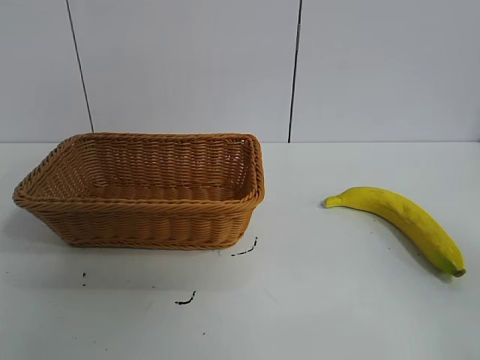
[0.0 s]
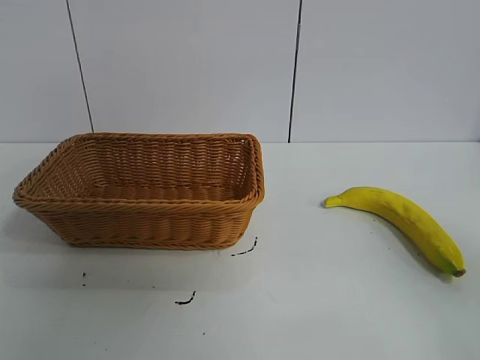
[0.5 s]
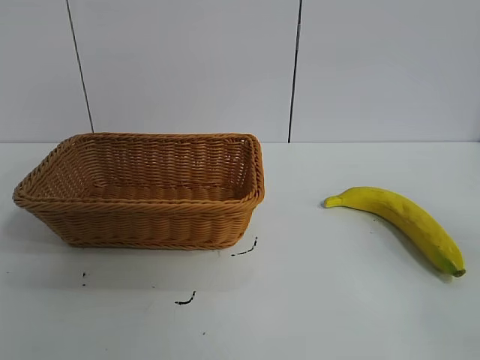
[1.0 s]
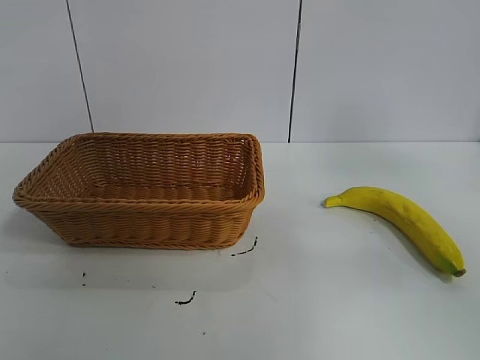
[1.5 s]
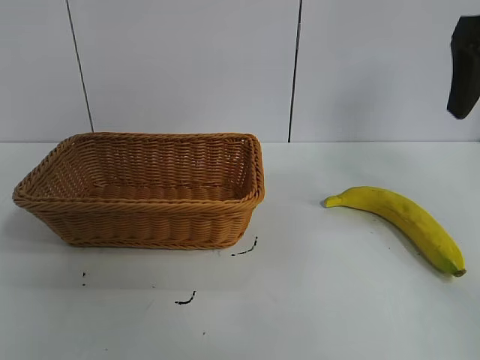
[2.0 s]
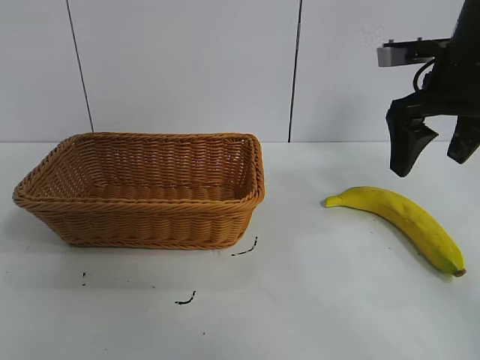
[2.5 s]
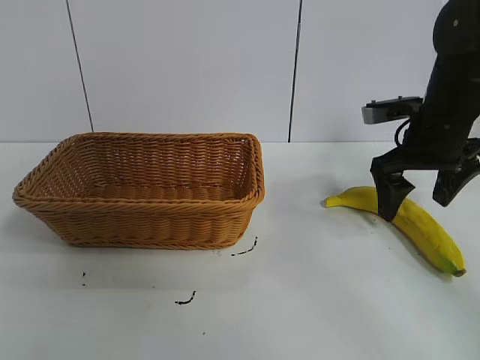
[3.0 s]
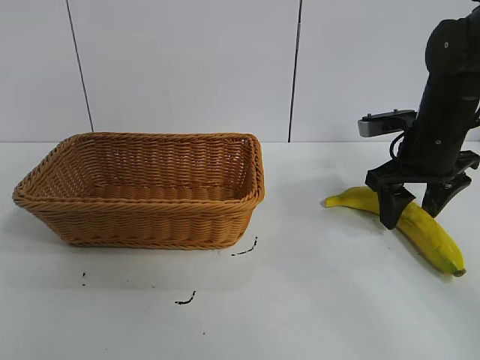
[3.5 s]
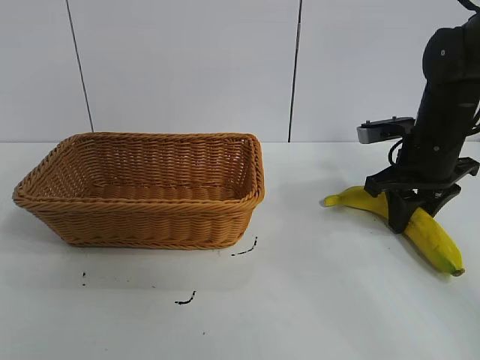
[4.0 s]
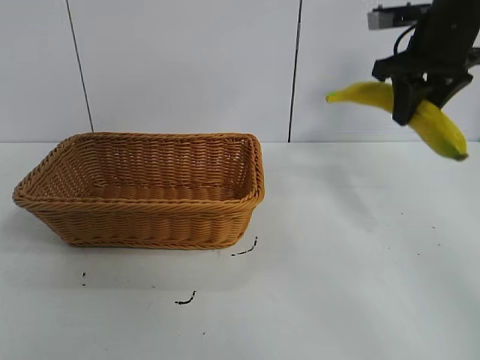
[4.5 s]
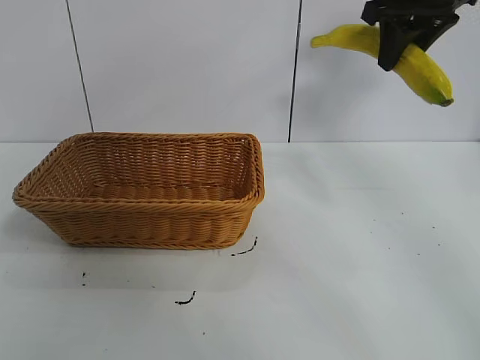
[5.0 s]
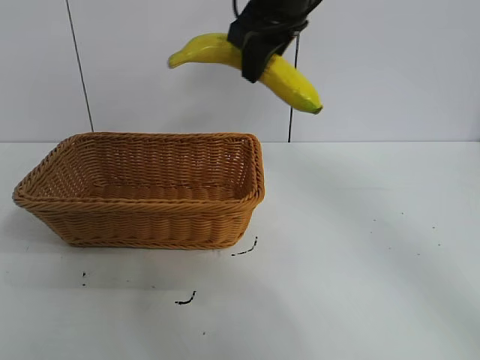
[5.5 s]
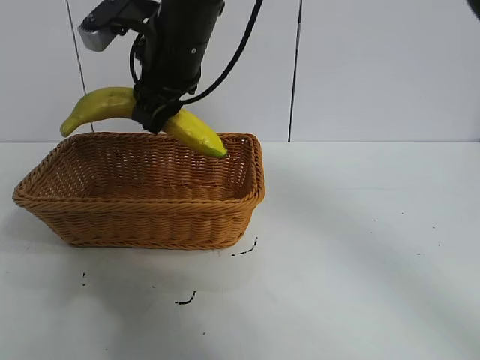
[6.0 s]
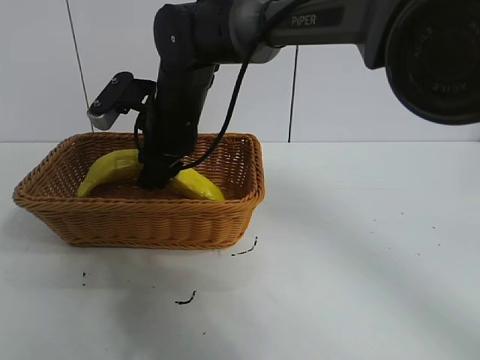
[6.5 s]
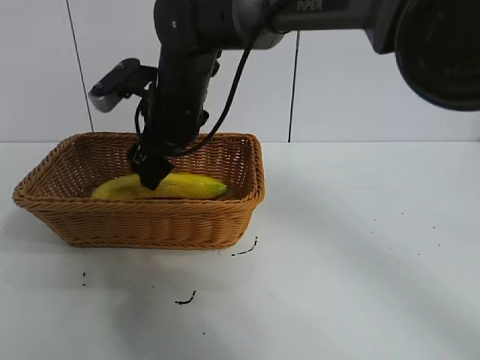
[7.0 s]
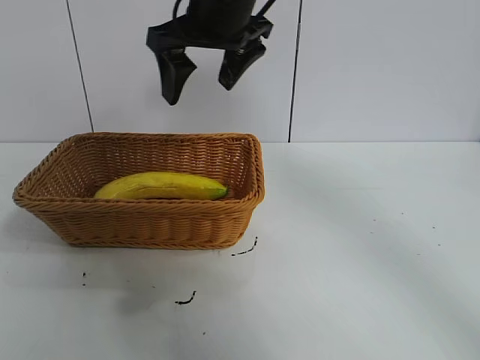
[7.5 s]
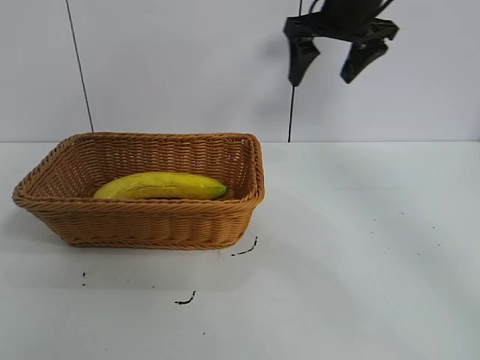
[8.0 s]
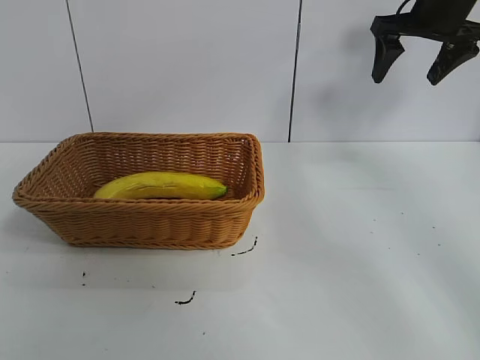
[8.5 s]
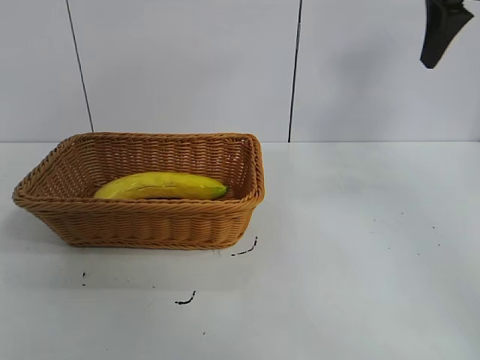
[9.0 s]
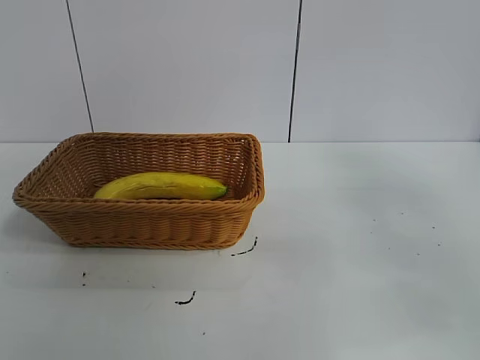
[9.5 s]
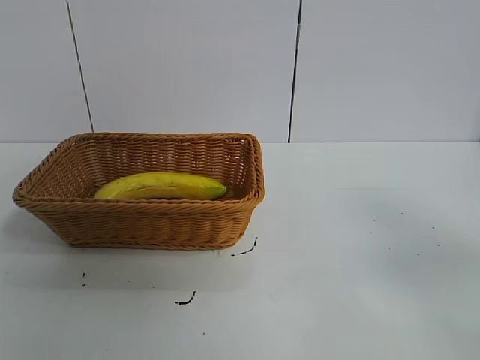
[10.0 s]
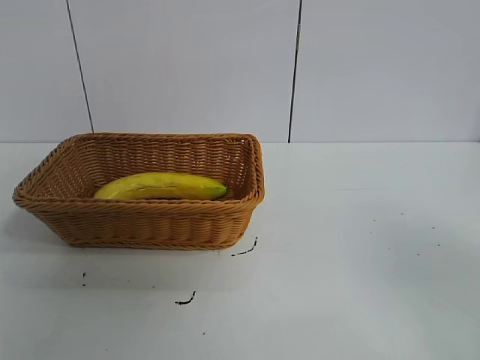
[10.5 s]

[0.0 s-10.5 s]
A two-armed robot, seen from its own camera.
Task of the whole recording: pick up the banana and put it into the basket.
Step, 1.0 to 4.0 s: Grasp the banana with right gripper.
Step, 4.5 to 7.0 s: Place the banana in the basket with right gripper.

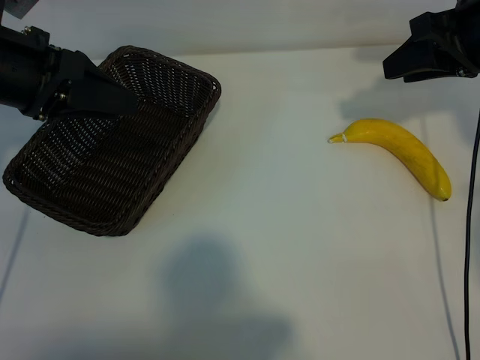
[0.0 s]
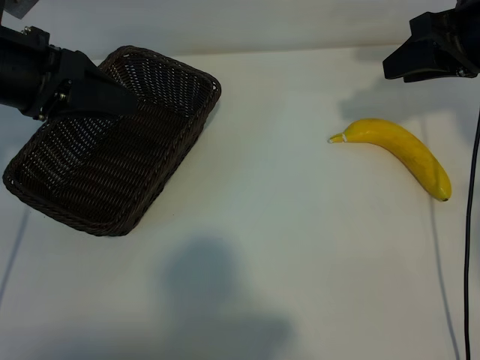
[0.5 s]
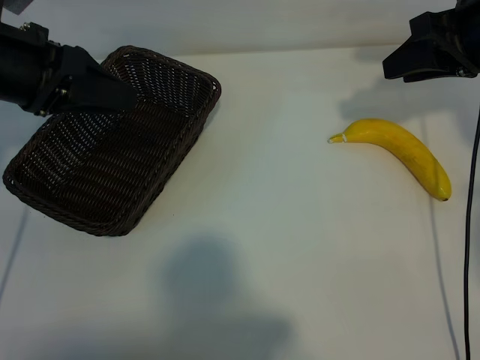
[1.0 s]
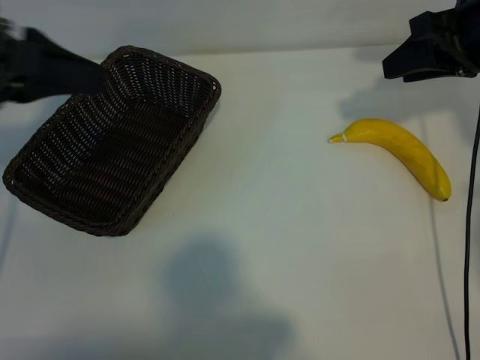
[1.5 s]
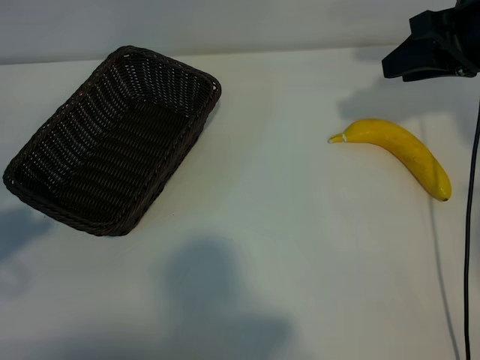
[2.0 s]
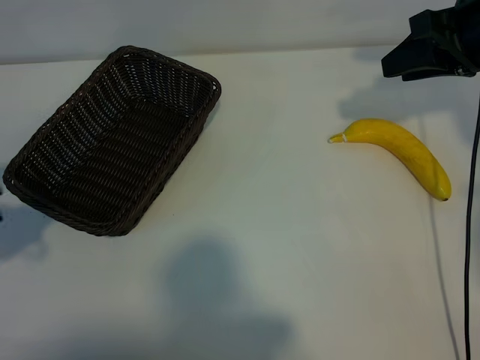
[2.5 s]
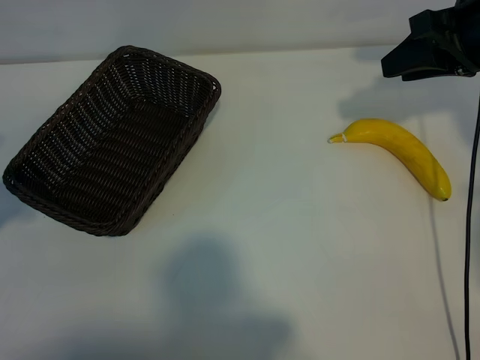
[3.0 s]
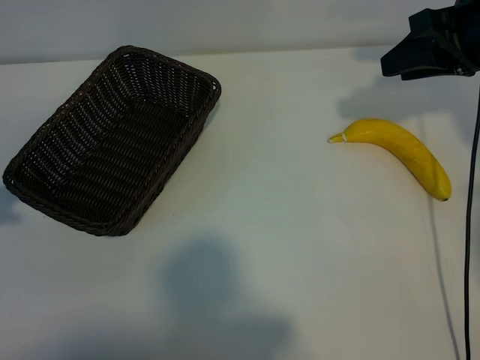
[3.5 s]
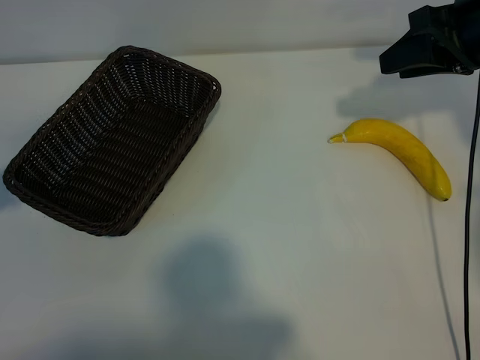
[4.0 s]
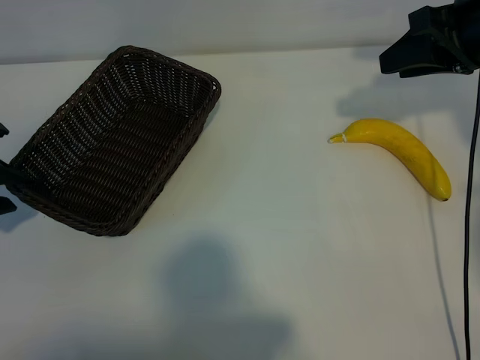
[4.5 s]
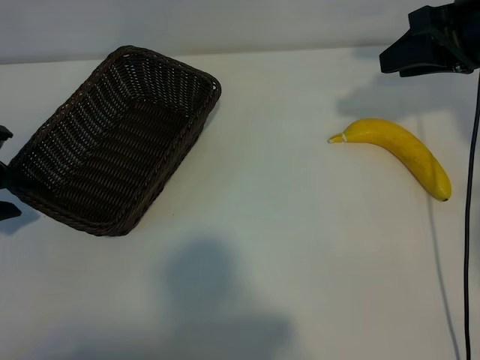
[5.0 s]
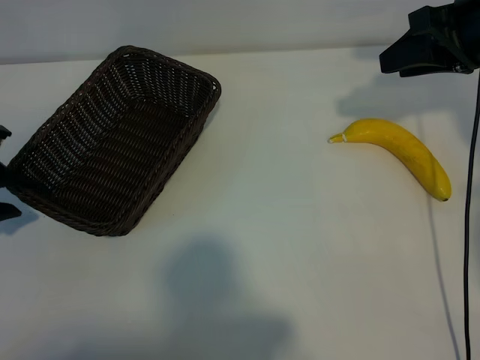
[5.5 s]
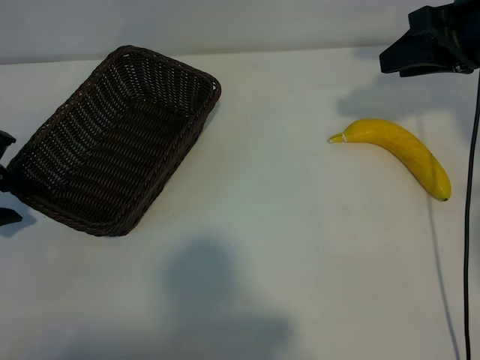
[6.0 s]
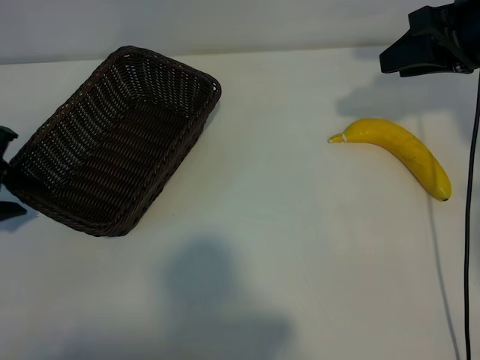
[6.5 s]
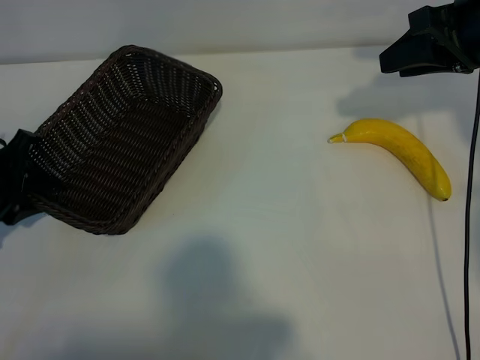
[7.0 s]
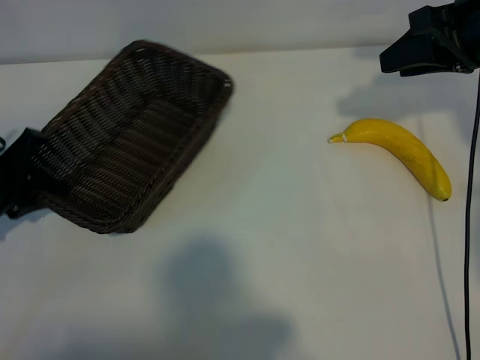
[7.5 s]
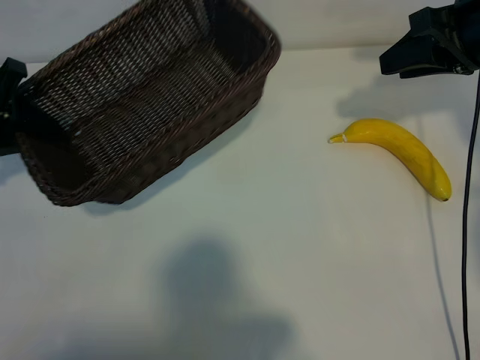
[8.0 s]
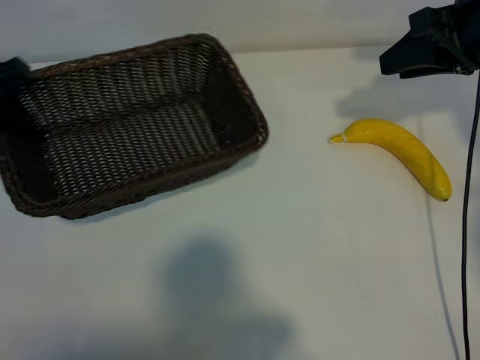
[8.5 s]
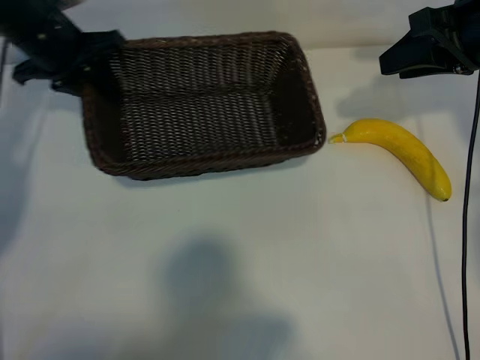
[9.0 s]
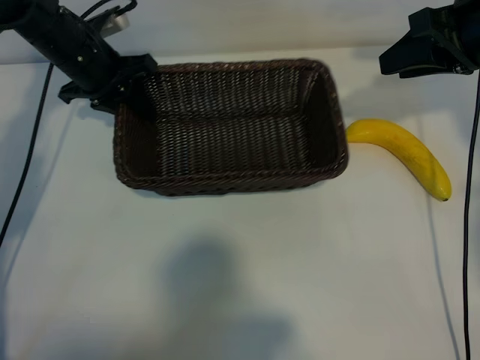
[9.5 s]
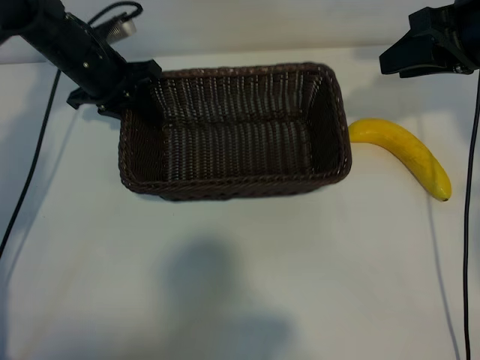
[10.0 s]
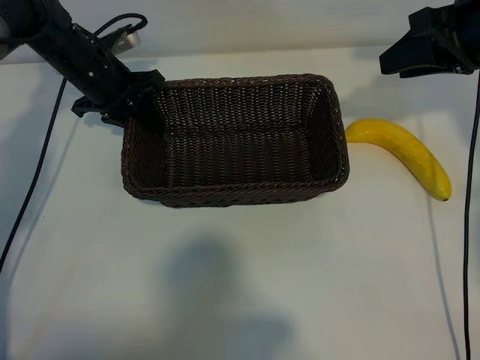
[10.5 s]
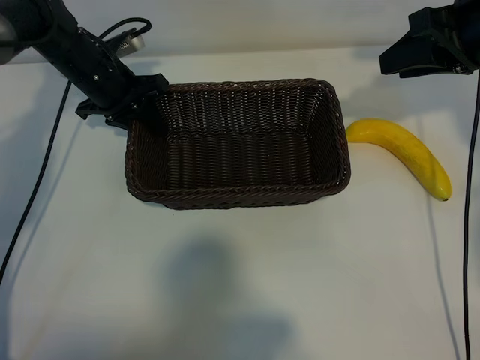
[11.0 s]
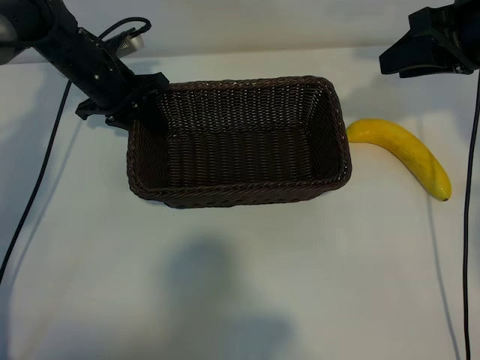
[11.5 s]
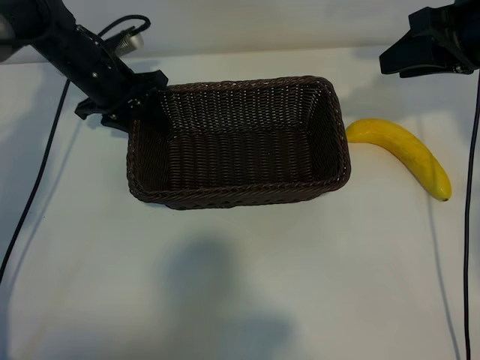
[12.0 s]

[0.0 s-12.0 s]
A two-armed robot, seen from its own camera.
Task of the whole recording: pick up the banana and put it into the basket.
Step, 1.0 to 7.0 s: Grasp the basket with the left gripper.

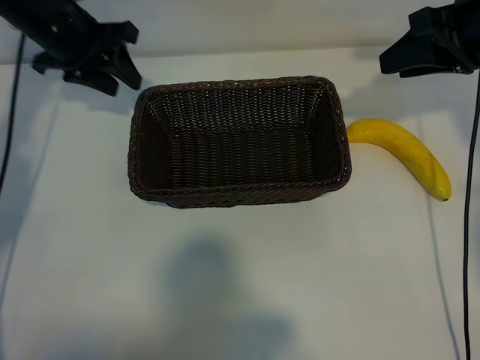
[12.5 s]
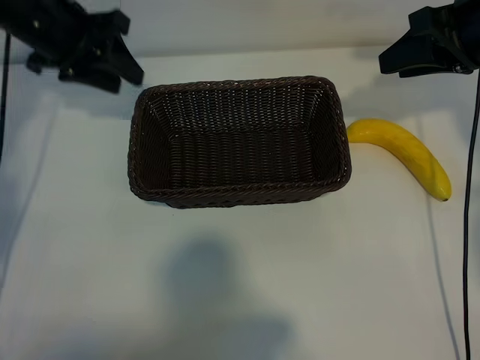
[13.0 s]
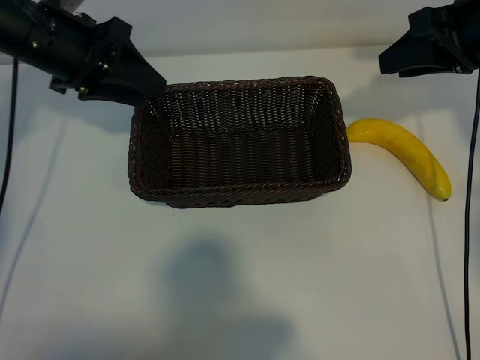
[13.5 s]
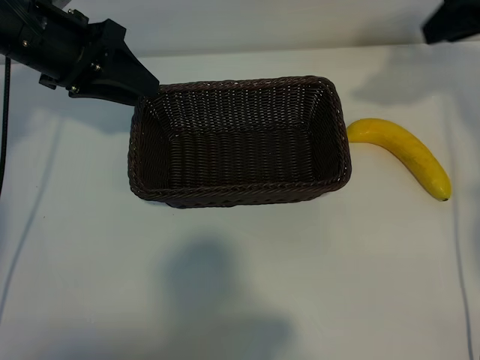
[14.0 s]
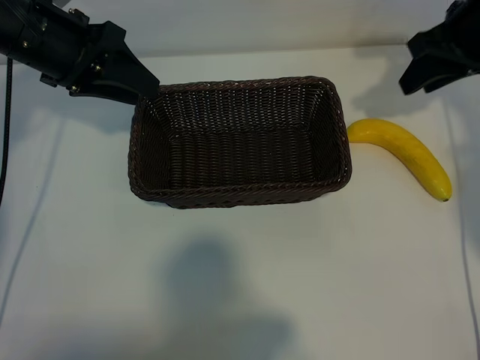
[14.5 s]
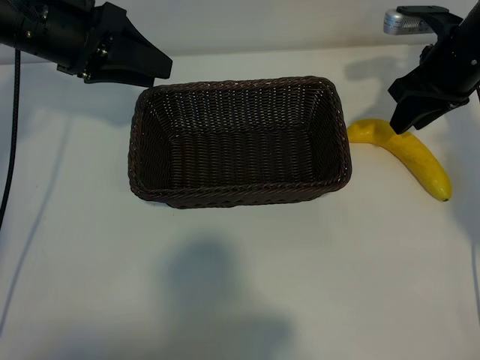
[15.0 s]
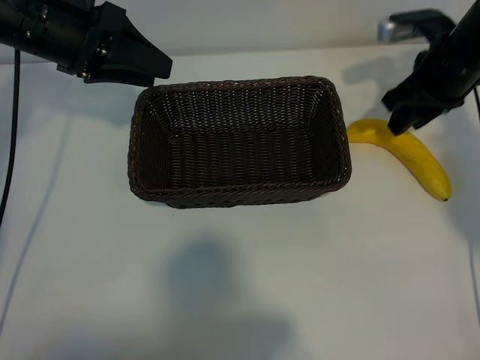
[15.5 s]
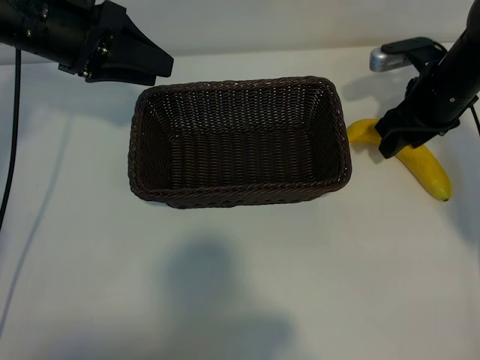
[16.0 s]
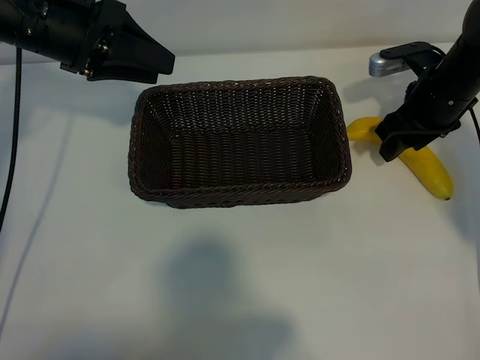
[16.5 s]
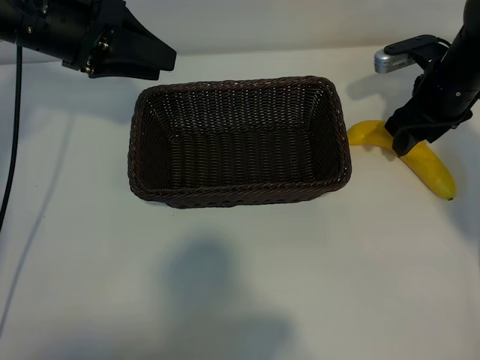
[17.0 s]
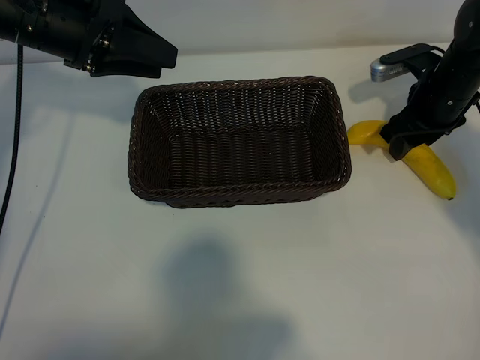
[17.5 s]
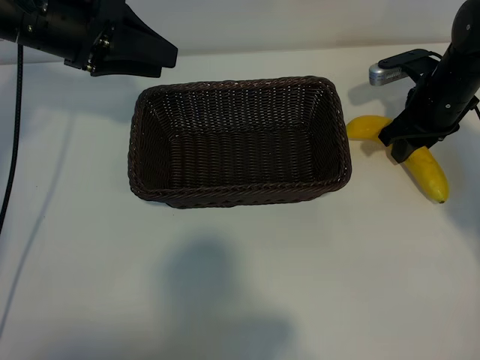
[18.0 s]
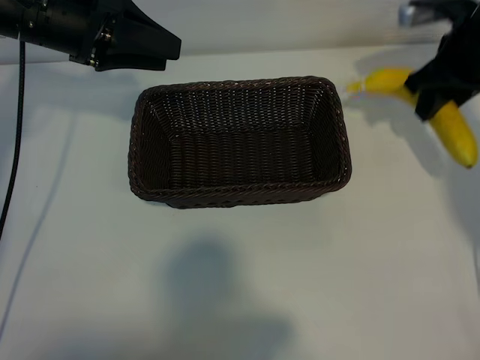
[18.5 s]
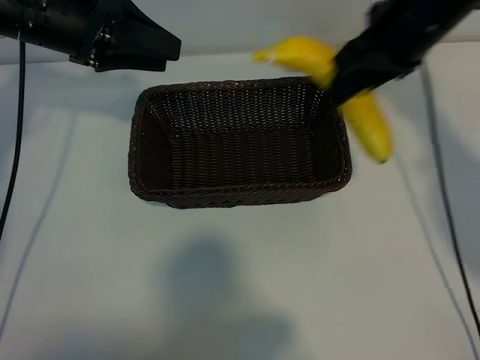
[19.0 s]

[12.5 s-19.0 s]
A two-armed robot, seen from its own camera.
Task of the whole recording: pick up the banana and put it into the basket.
Step, 12.5 to 17.5 s: Grasp the banana with right gripper.
